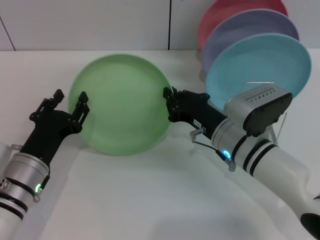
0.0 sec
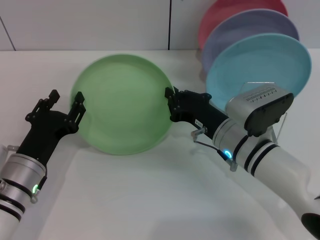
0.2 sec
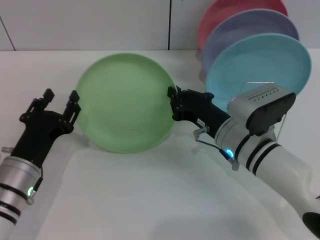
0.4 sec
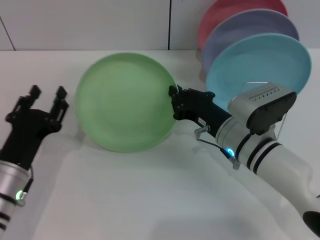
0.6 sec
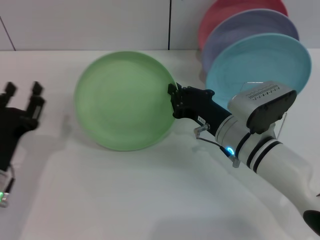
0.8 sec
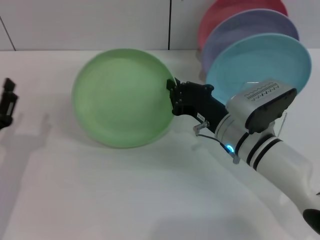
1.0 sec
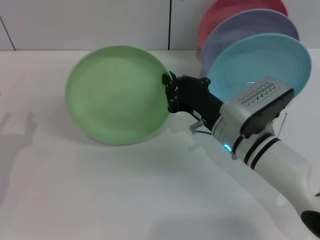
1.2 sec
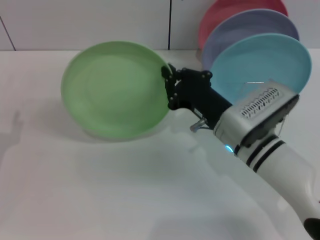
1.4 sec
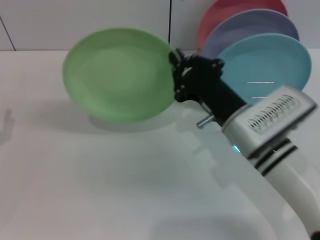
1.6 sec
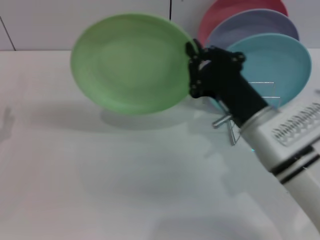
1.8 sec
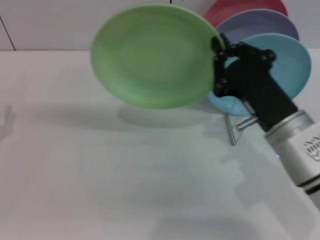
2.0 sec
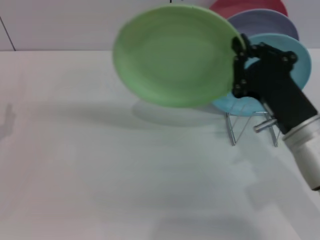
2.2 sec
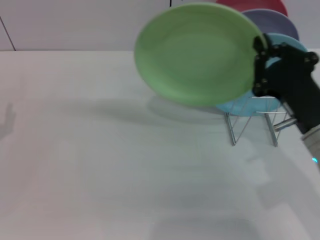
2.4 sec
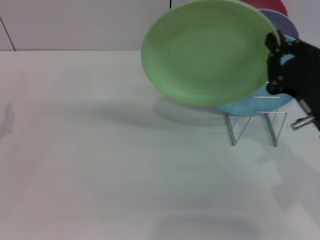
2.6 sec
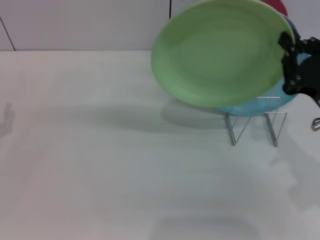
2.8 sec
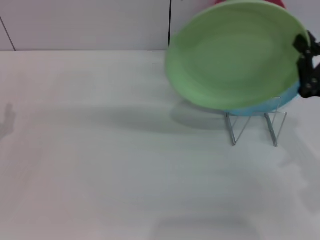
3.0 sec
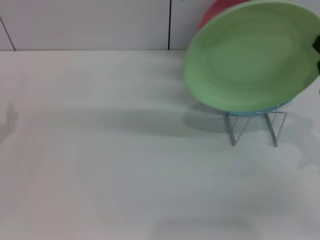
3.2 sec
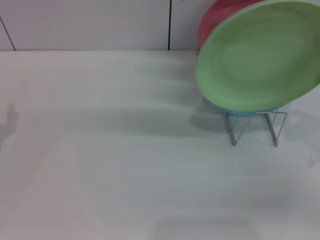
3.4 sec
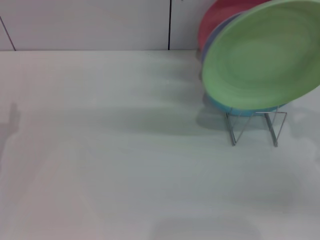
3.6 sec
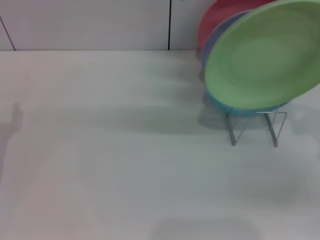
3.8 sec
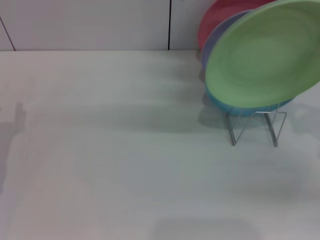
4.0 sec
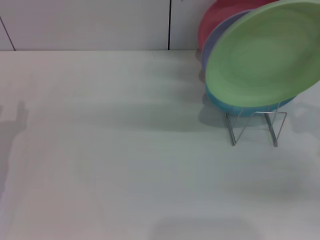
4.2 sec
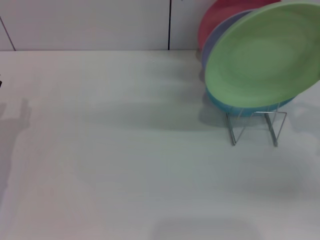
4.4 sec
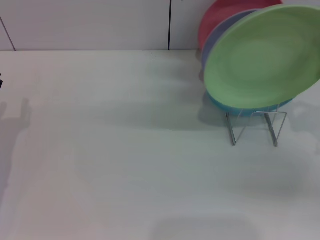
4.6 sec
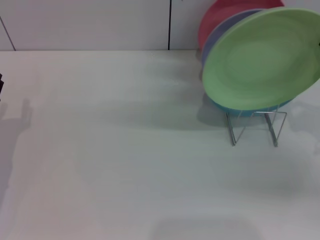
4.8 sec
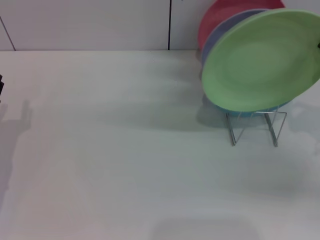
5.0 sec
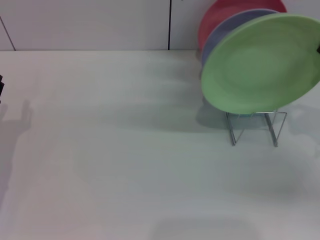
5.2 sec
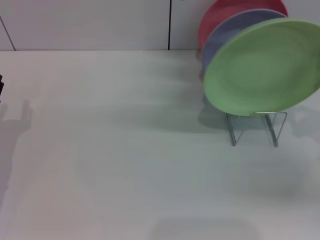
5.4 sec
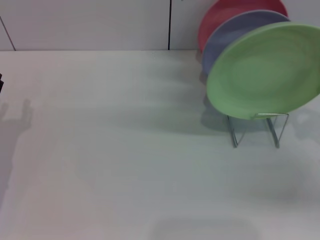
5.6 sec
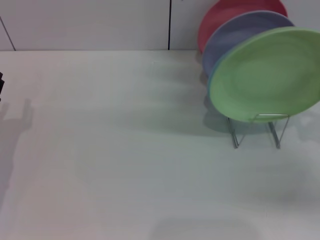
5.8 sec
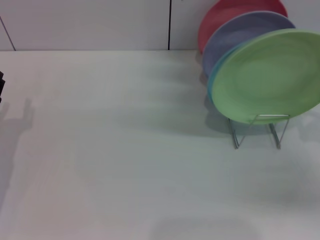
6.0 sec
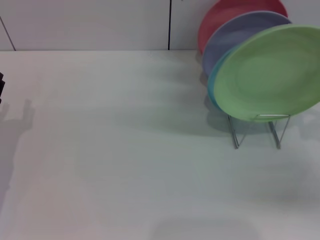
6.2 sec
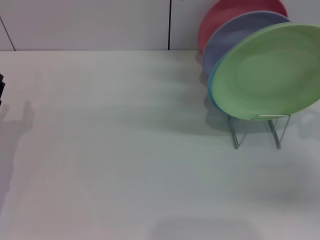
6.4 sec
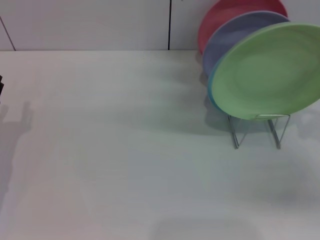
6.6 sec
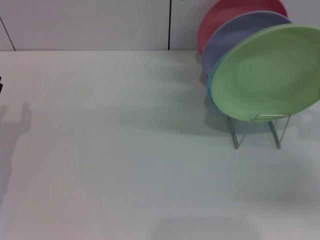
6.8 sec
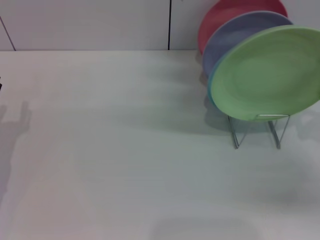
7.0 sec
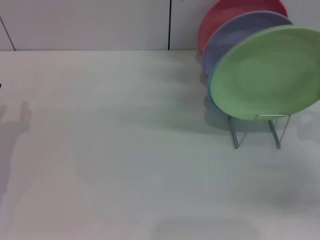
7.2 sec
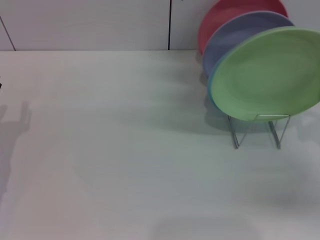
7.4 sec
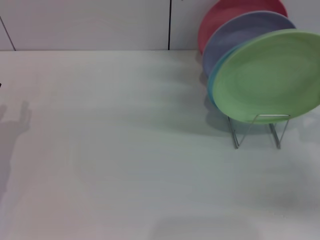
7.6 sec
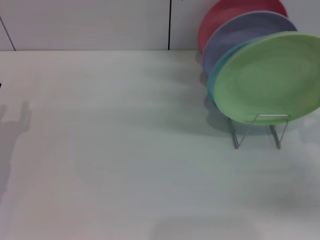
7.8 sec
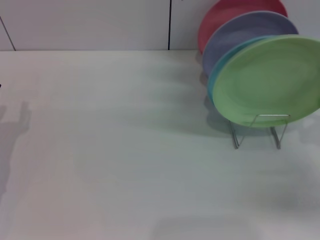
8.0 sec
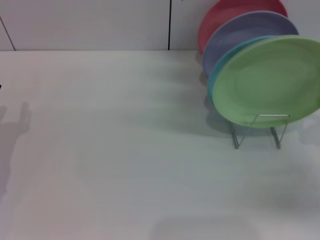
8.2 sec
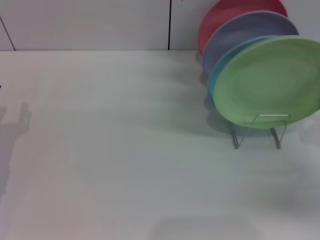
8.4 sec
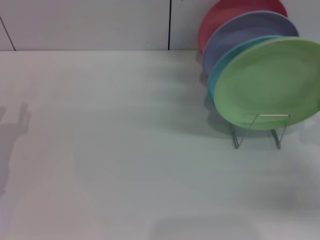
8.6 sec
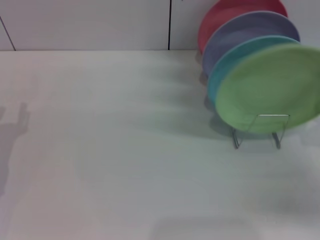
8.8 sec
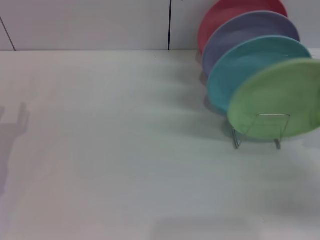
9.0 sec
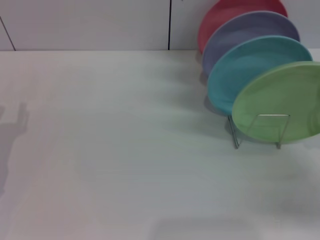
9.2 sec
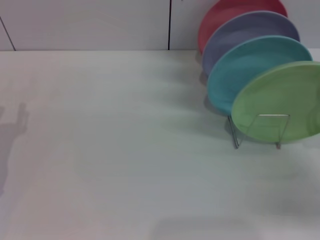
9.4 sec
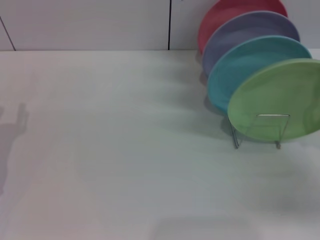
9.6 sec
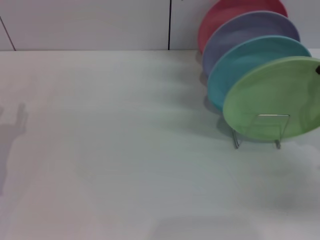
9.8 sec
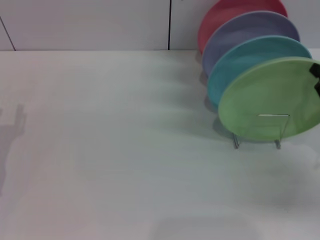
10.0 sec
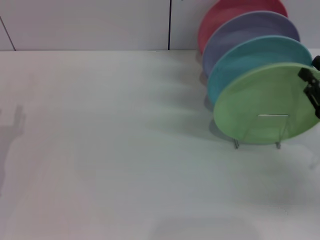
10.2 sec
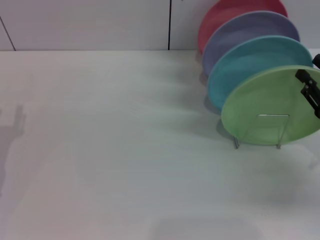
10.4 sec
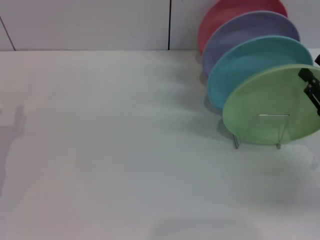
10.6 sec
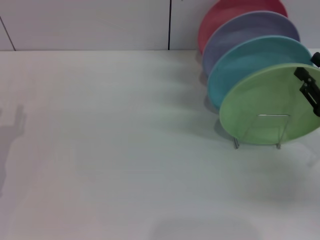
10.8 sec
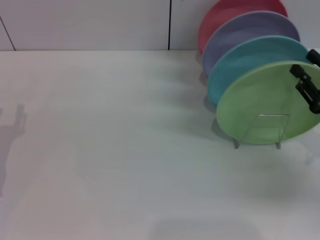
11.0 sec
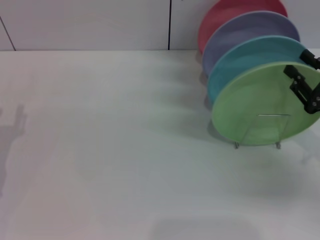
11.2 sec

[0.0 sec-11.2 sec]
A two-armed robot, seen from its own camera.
Task of the whole recording: Grip the plate with one hand, pass it to the other, then set it on the shelf.
0.0 sec to 1.6 sec: The left gripper moves to the left, approximately 10 cm. Meanwhile the right gripper moves about 5 cm.
1.6 sec to 3.2 sec: The right gripper goes approximately 20 cm to the right.
3.2 sec to 4.8 sec: The right gripper moves about 5 cm.
4.8 sec to 8.0 sec: The grippers make only small movements.
8.0 sec to 9.6 sec: Both grippers stay put.
9.6 sec to 11.2 sec: The grippers make only small movements.

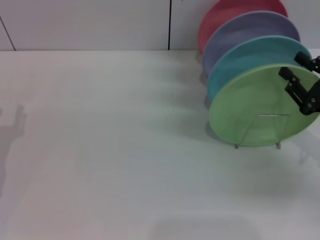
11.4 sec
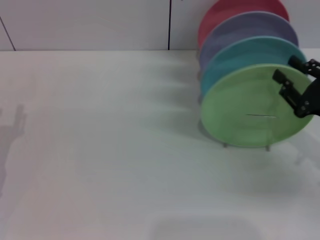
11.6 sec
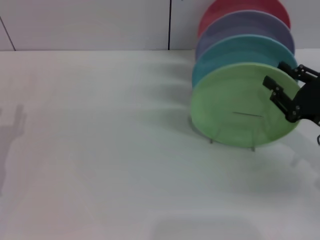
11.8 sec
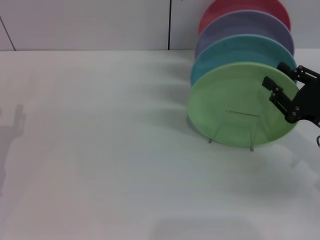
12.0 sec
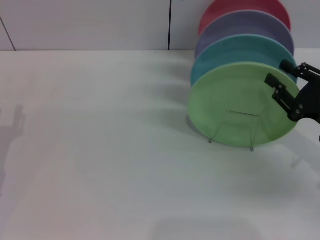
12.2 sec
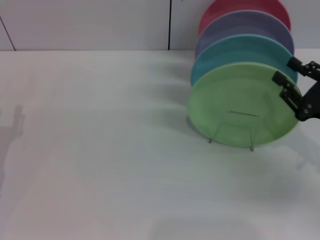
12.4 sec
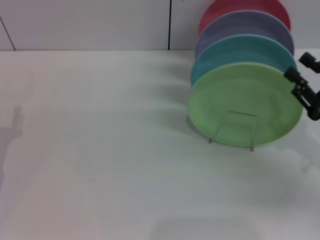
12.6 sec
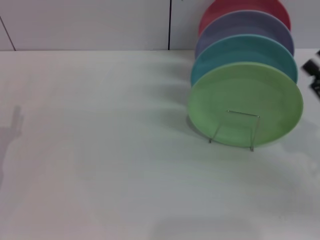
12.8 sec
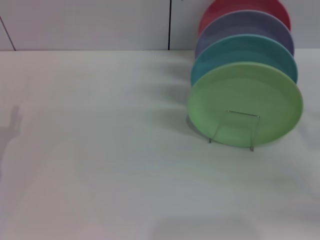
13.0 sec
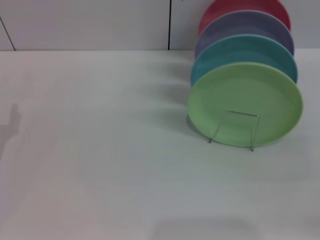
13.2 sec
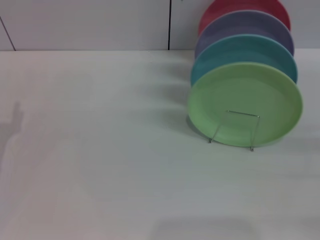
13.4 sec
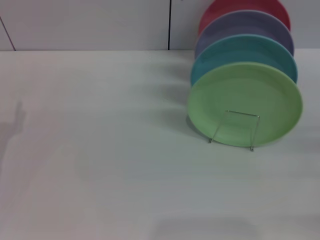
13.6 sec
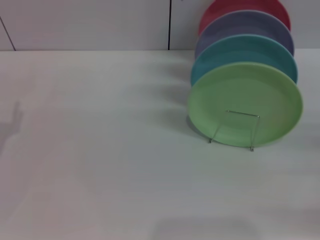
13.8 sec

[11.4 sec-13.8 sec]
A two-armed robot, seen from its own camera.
Task of the whole recording: Grip the plate with one hand, pass it to the other, then set it on the shelf.
11.4 sec to 12.6 sec: There are only small adjustments of the grippers.
12.6 sec to 13.8 sec: The right gripper moves to the right, some 10 cm.

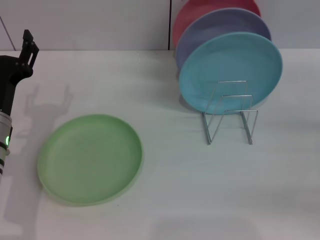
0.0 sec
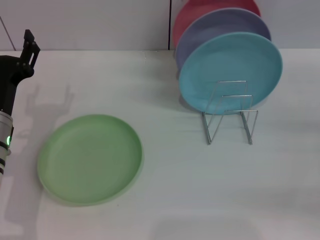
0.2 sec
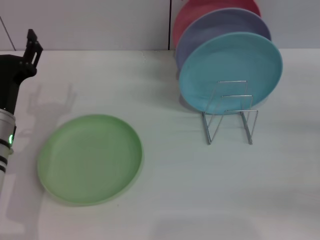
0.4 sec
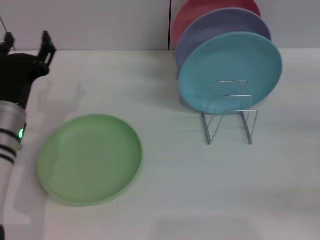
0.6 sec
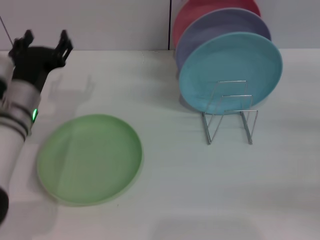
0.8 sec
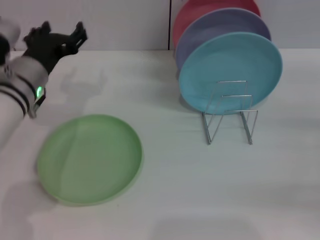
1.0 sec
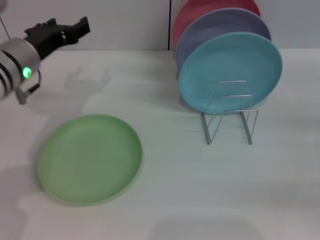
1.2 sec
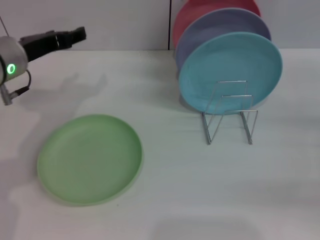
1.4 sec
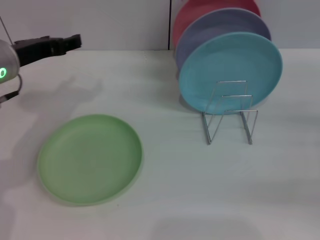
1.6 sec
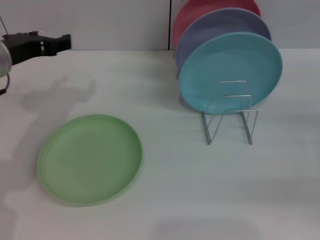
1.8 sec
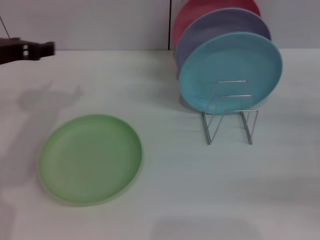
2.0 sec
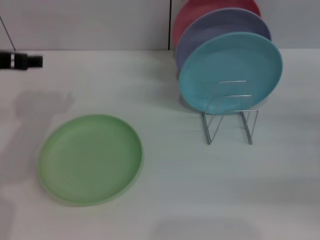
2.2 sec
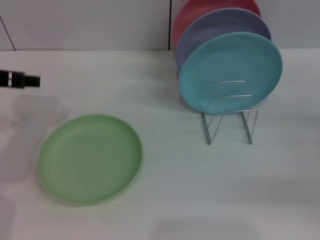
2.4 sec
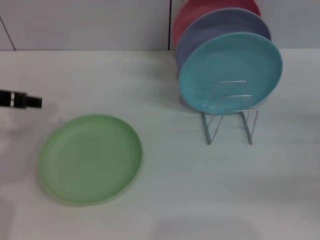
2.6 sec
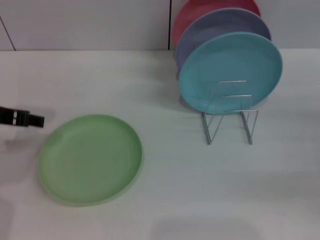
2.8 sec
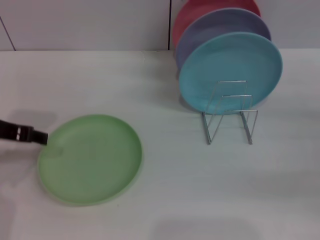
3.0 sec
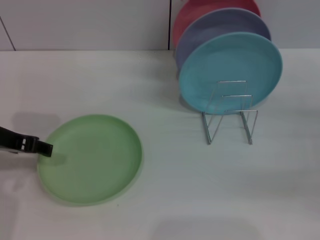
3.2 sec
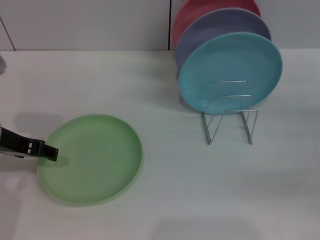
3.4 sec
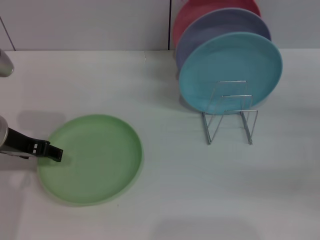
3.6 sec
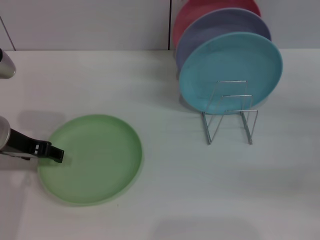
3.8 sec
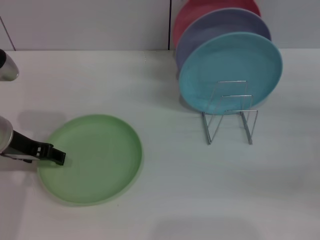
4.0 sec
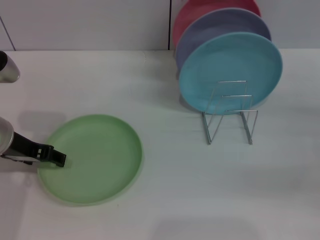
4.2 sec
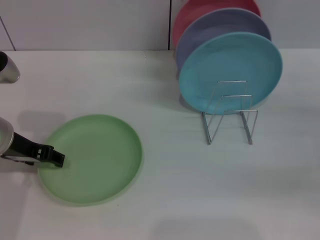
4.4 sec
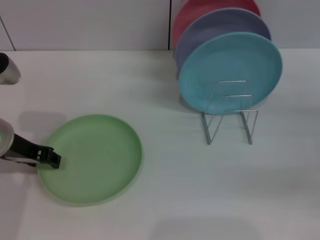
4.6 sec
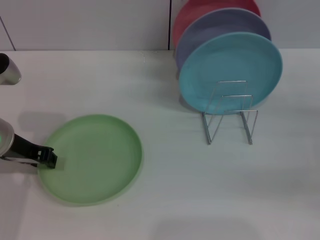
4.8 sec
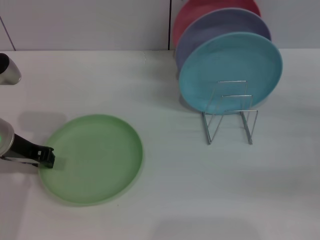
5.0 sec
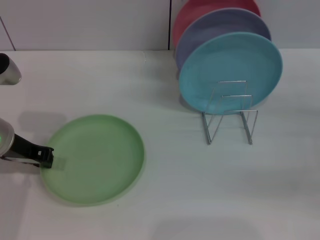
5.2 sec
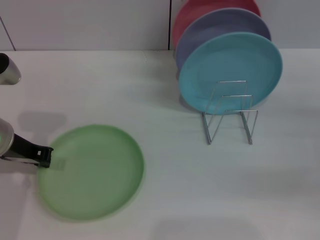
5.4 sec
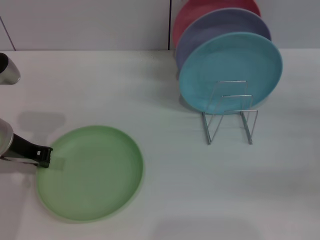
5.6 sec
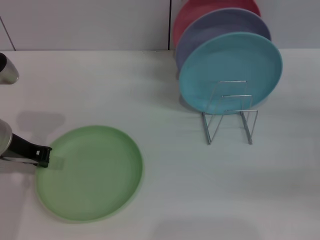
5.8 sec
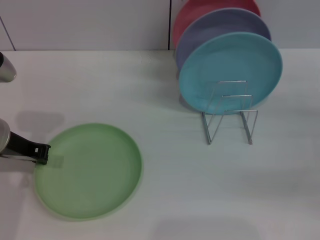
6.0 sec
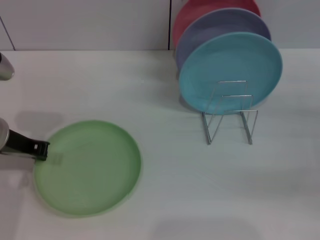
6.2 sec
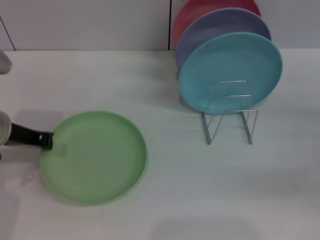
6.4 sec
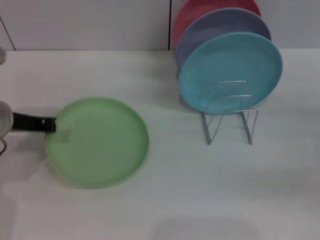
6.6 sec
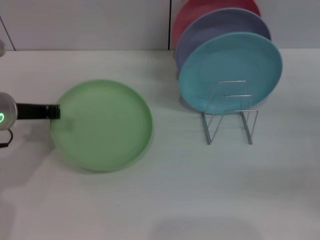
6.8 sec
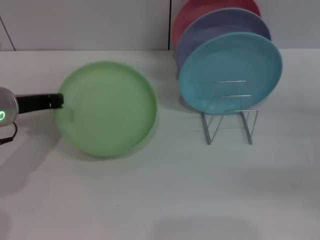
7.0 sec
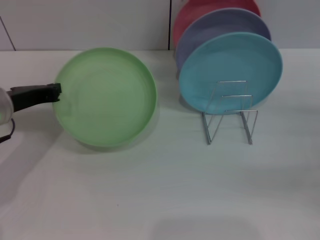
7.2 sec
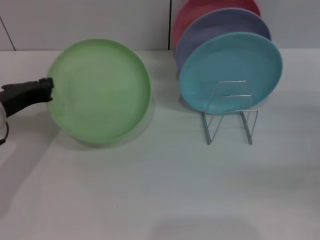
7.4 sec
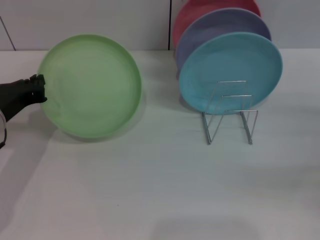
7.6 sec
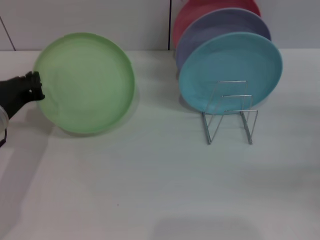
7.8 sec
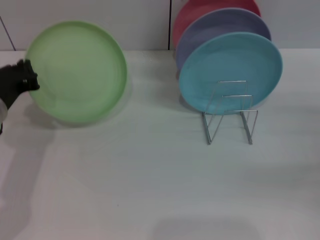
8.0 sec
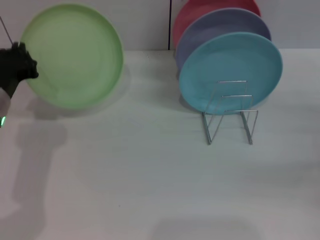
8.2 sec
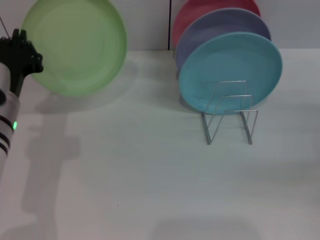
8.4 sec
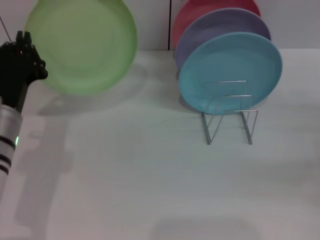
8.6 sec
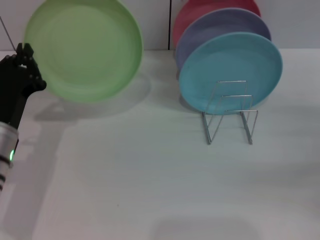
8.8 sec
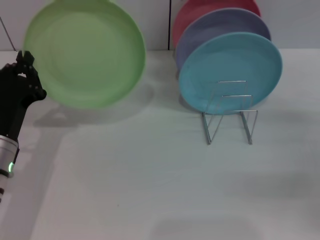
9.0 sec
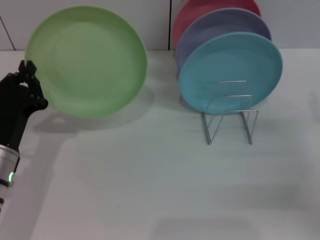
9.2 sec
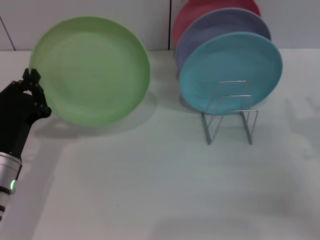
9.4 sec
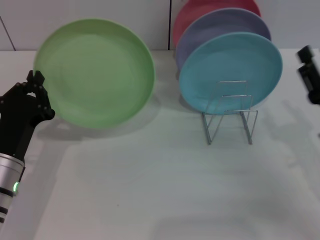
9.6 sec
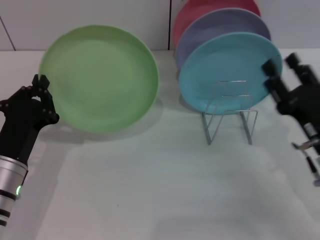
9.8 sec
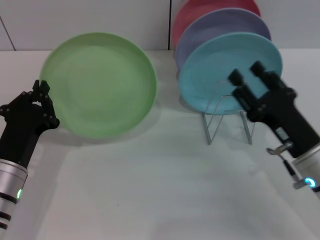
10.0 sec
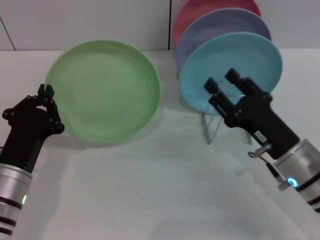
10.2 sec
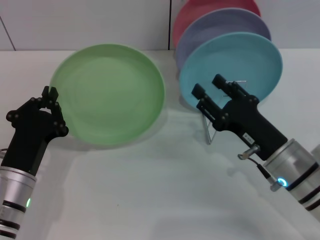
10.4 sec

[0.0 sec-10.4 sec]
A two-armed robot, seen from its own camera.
Task of the whole recording: Grip the plate with one hand, pass it to the other, then set it on the shelf.
Step, 0.0 sec to 6.8 sec: Pick up the plate with the left gripper.
0.0 sec to 1.4 sec: The left gripper travels upward and forward by approximately 10 cm.
1.4 sec to 3.0 sec: The left gripper is displaced backward by about 5 cm.
3.0 sec to 4.4 sec: There are only small adjustments of the grippers.
4.4 sec to 6.0 sec: The left gripper closes up.
7.4 sec to 9.0 sec: The left gripper shifts approximately 5 cm downward.
9.0 sec to 10.4 sec: The right gripper goes roughly 15 cm to the left, while the left gripper changes place by roughly 5 cm.
